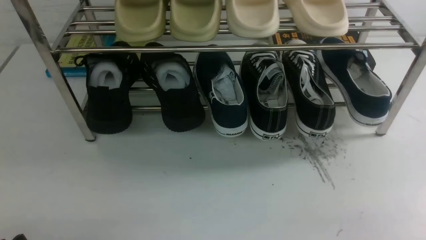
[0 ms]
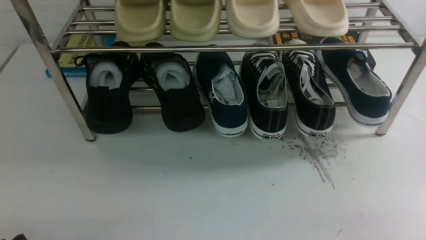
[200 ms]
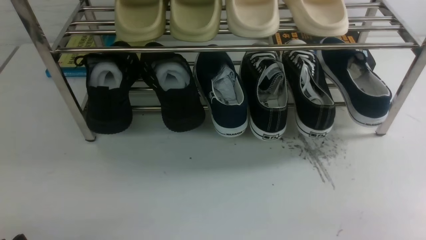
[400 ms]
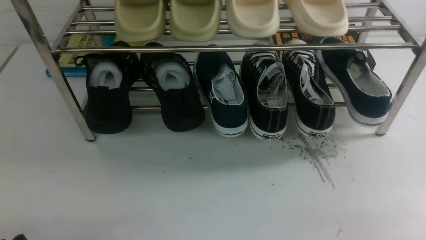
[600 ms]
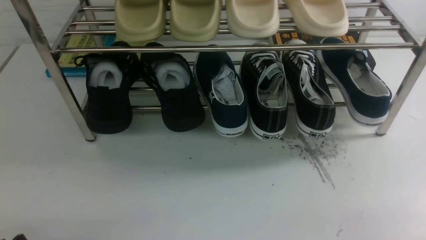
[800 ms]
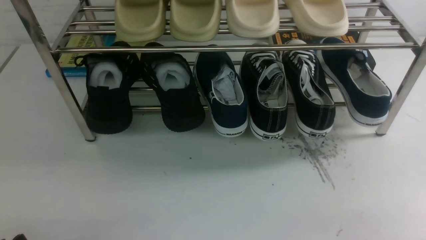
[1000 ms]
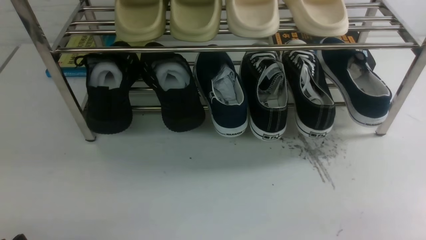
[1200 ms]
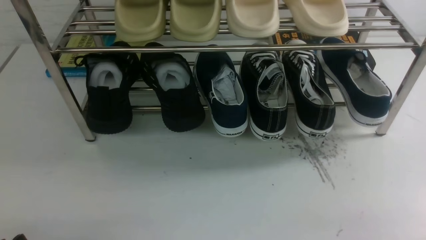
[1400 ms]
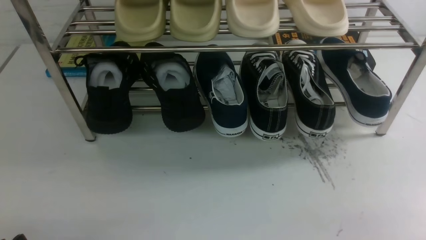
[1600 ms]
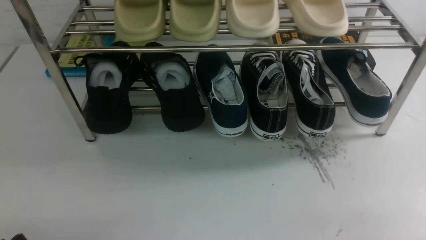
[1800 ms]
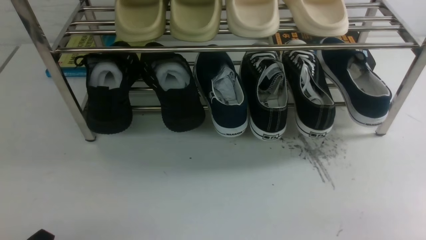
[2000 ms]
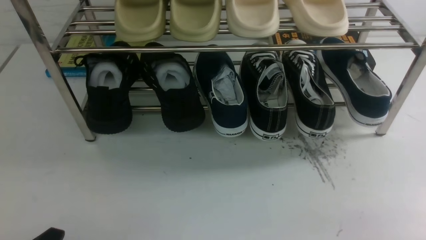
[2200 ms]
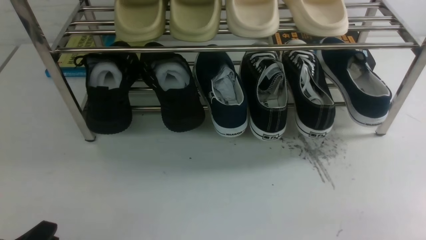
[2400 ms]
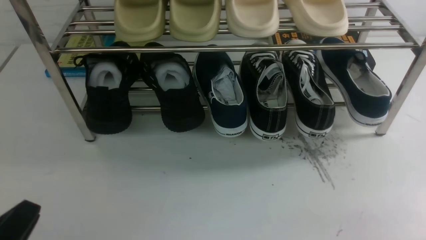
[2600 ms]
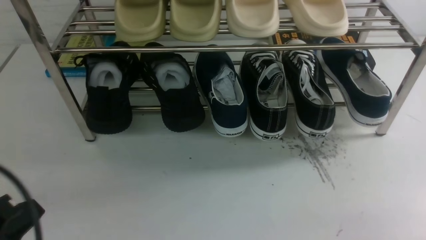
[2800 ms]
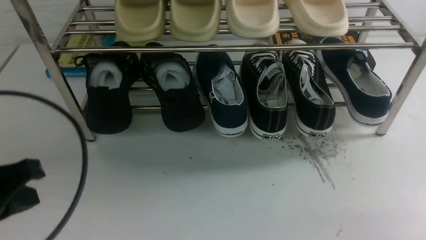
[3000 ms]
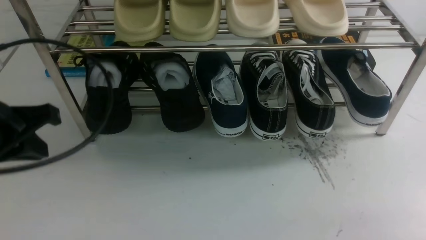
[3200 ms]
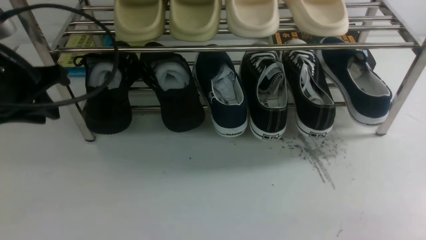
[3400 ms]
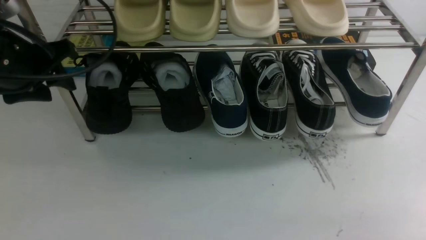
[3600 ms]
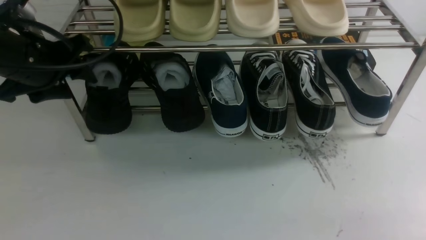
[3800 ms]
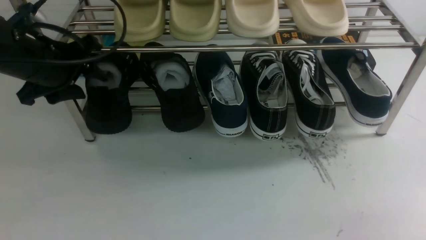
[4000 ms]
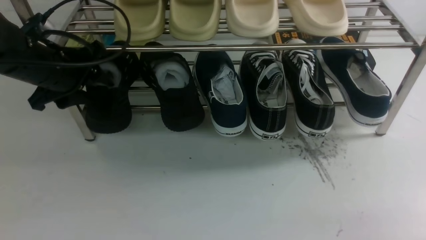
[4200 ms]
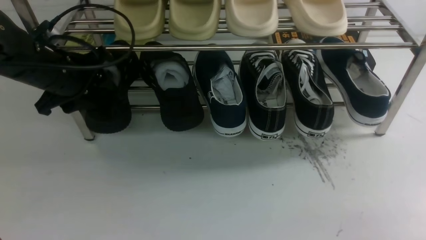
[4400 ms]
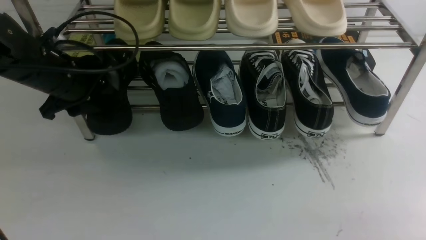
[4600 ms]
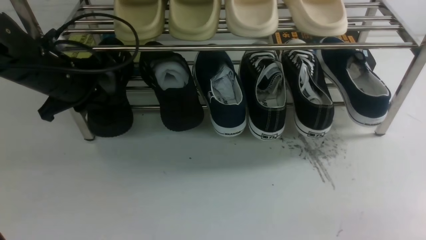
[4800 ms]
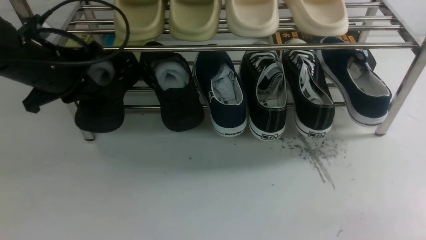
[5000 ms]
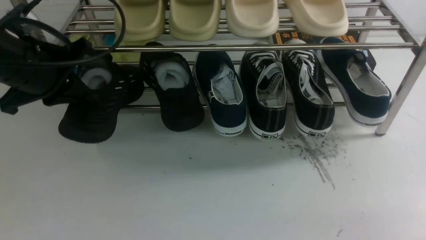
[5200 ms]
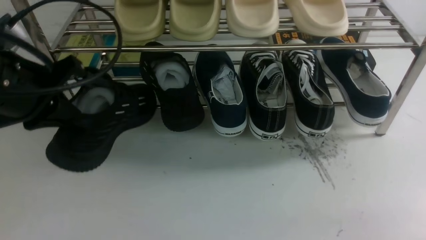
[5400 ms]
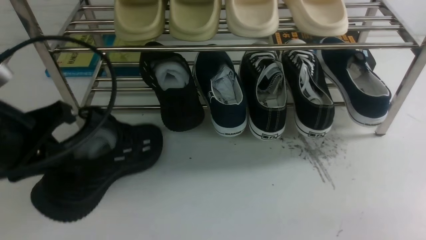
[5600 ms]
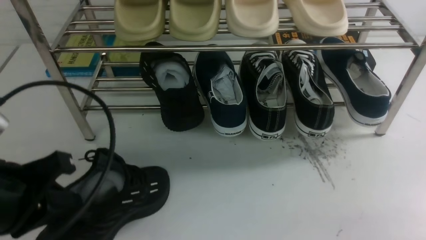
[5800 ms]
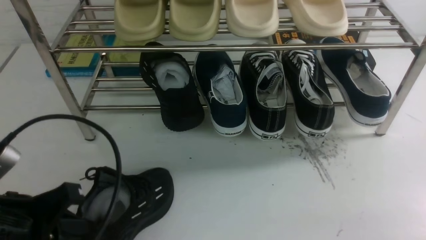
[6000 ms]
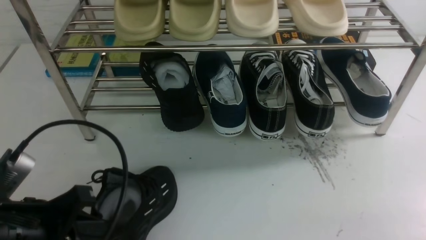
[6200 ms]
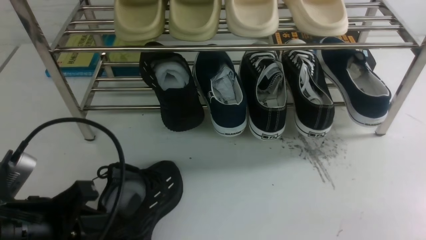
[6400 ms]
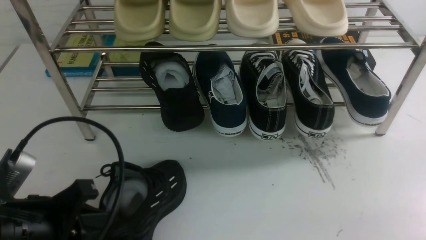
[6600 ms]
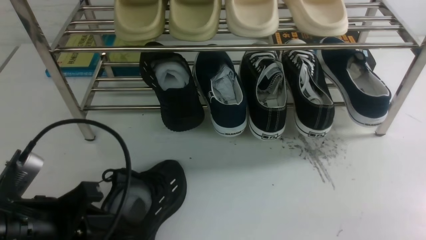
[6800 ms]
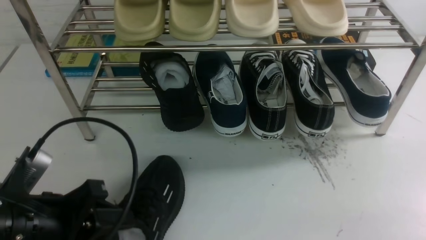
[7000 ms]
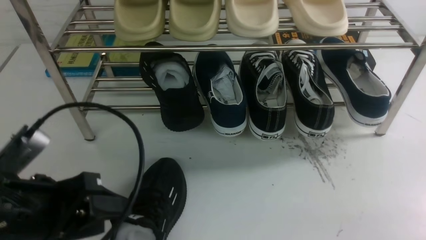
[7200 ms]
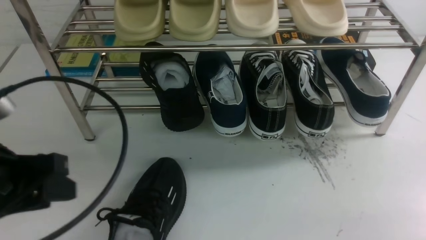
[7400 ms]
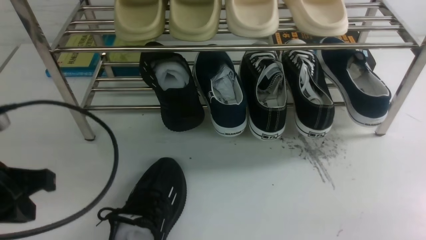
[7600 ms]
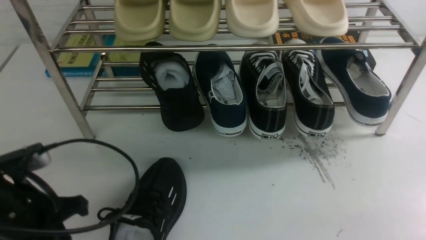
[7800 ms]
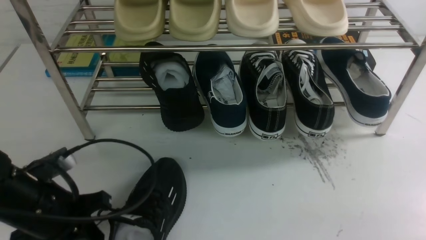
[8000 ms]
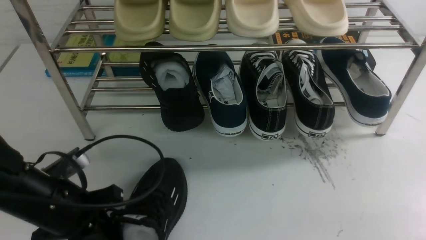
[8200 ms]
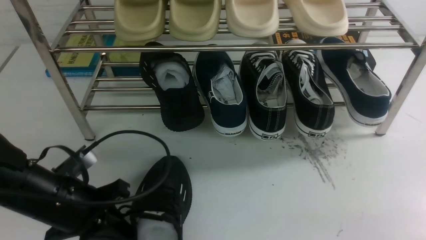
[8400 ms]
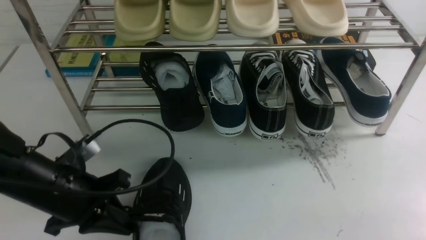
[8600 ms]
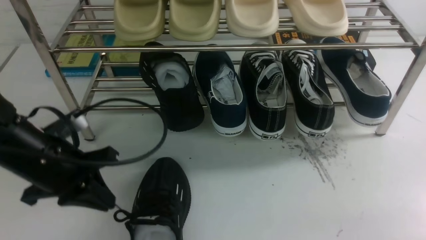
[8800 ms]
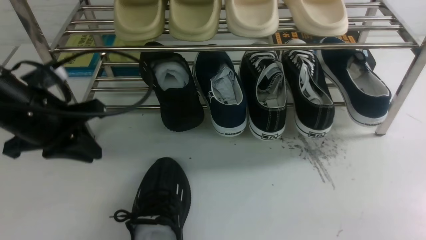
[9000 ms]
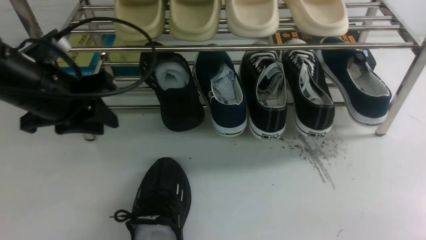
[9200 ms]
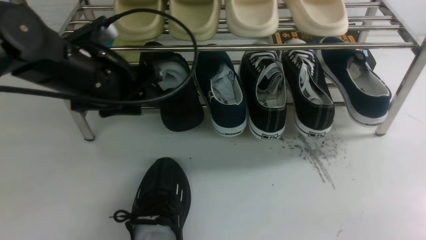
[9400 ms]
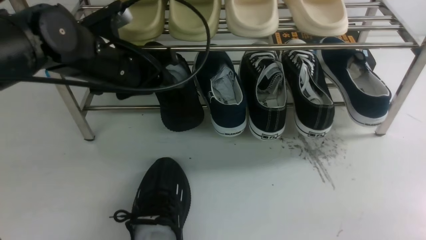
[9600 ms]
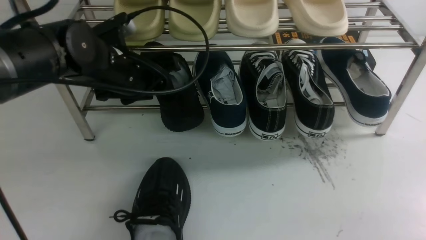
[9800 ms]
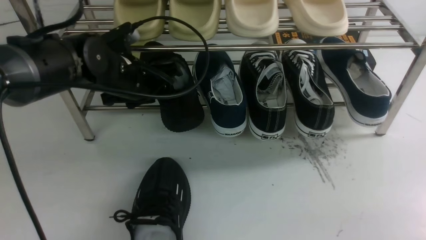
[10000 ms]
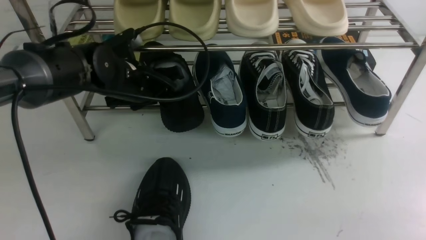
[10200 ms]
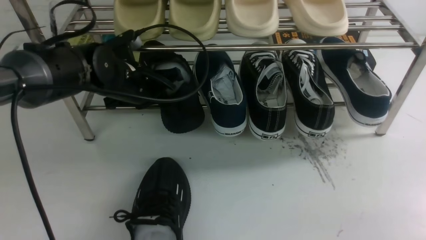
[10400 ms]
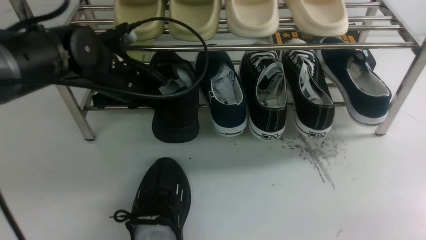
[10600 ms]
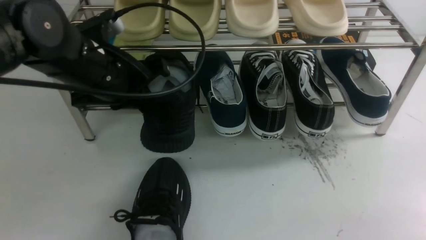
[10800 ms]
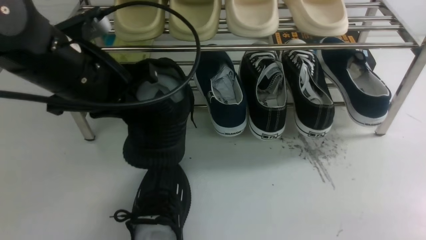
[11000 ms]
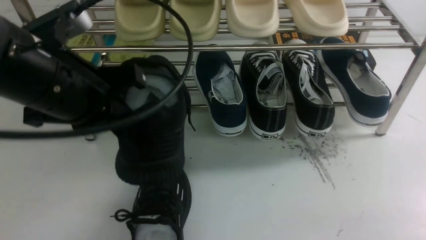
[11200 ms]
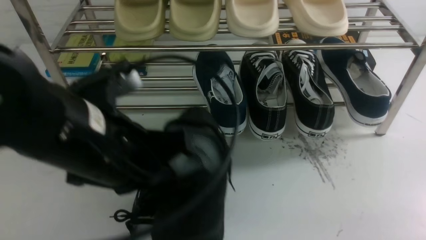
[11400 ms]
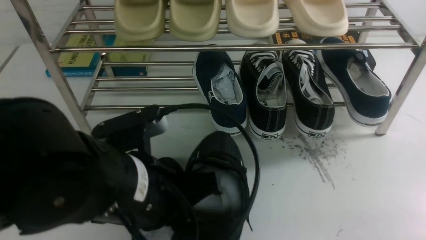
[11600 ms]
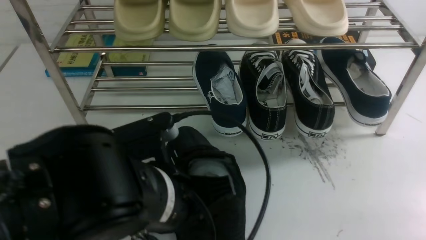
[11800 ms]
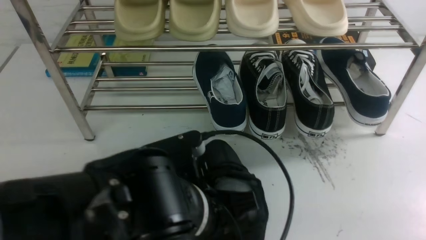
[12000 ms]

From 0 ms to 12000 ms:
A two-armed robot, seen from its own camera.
Step, from 0 ms to 5200 ms: use the left arm to clamp a shoe on the left side of the shoe rack.
Step, from 5400 ms to 7200 ms: Use your left arm to remove the clamped shoe from the shoe rack and put it down.
Step, from 7400 ms to 10800 ms: use the left arm to clamp a shoe on the left side of the shoe rack.
From 0 ms to 1600 ms: Both grippers stay put.
From 1600 ms to 3000 ms: The left gripper goes some 15 cm upward and forward, and closes its fingers.
From 3000 ms to 4400 ms: The left gripper travels forward by some 20 cm, and opens its fingers.
From 4400 ms to 6000 ms: The left gripper travels backward by roughly 25 cm, and closes its fingers.
From 6000 ms to 7600 ms: The left gripper ends up about 5 cm from where it was, and opens, then closes once more.
From 7600 ms to 9000 ms: The left gripper is displaced forward by some 10 cm.
From 9000 ms to 10400 ms: The left gripper shifts approximately 15 cm forward and to the right, and opens, then closes again.
From 10400 ms to 12000 ms: The left gripper shifts roughly 25 cm backward and to the right.

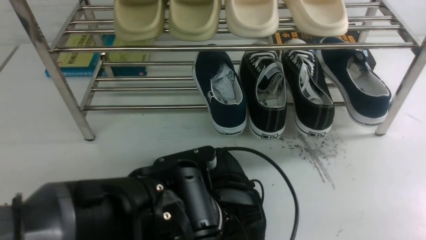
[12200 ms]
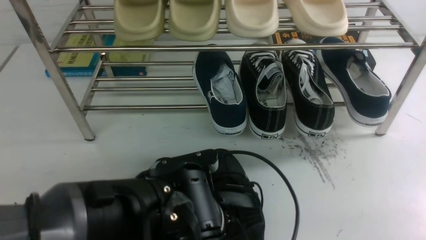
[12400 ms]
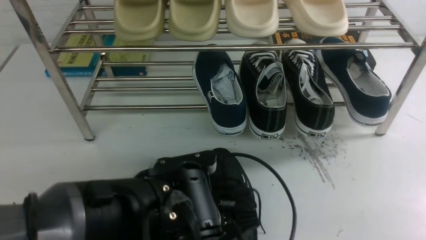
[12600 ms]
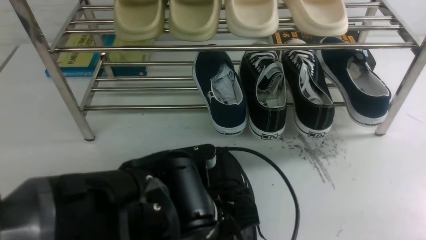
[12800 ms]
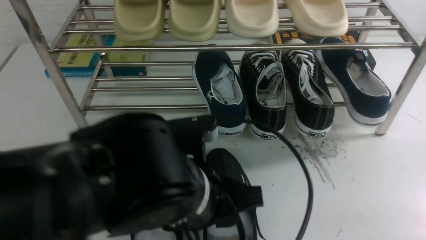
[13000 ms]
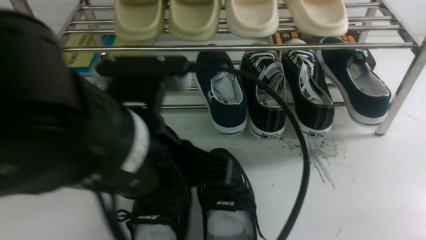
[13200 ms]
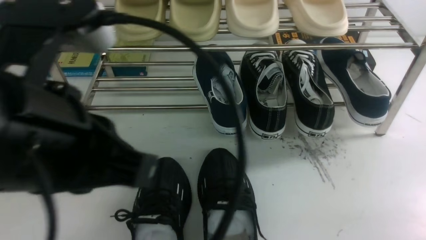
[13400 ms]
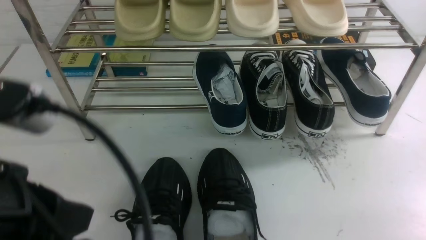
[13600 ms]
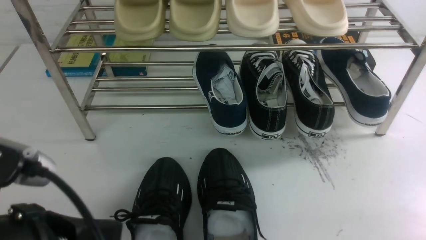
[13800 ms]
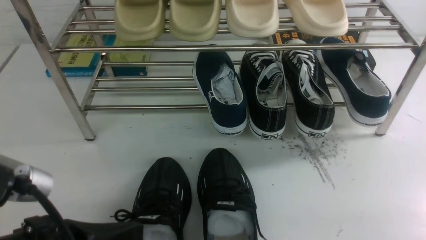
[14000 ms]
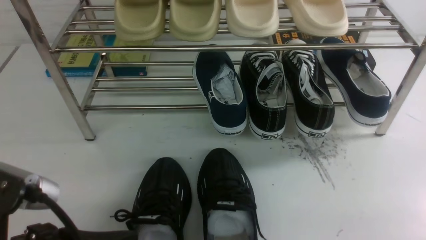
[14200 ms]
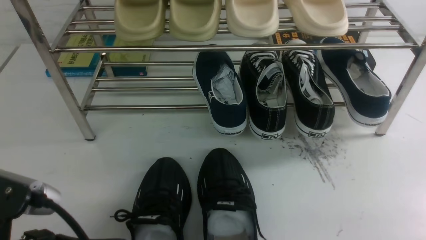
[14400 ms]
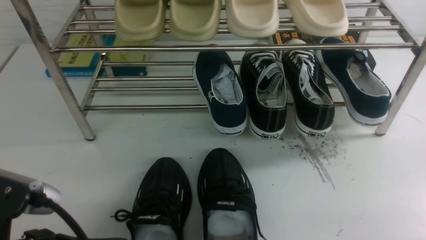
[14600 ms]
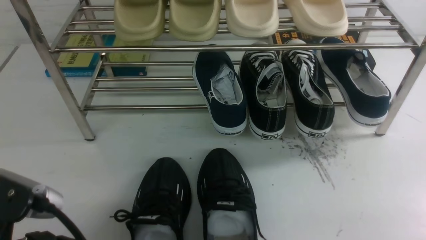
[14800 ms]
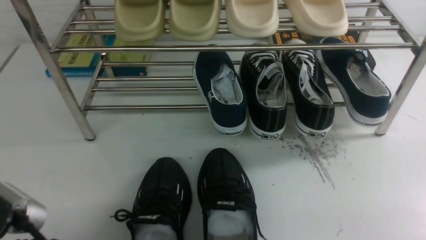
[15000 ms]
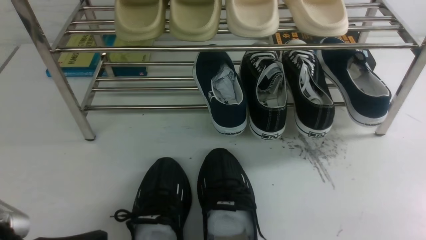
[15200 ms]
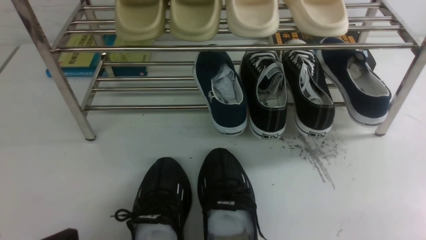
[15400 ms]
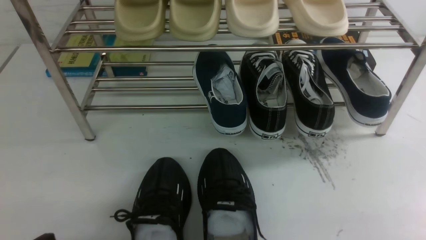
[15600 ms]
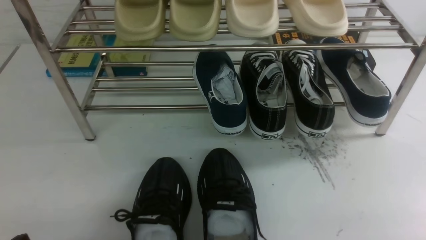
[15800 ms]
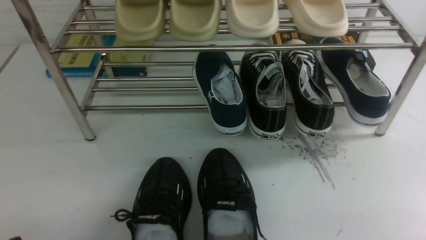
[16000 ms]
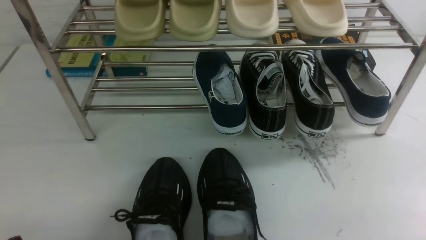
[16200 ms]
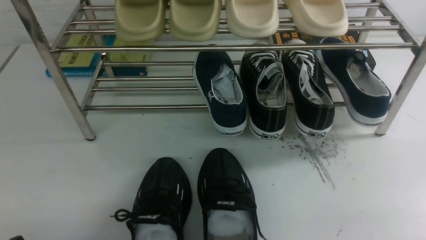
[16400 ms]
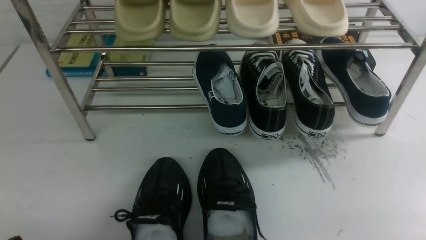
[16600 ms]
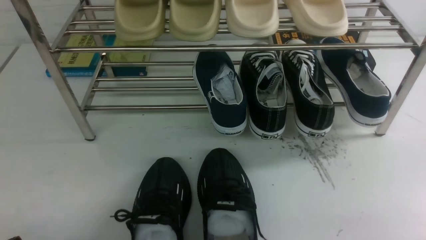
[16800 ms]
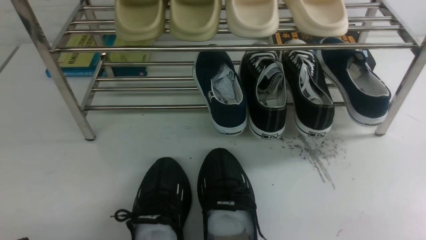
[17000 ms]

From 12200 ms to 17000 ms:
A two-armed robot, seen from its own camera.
From 12200 ms to 13800 ms: The left gripper heads to the left, upward and backward, covering some 20 cm, and opens, then closes again.
From 13800 ms to 15400 ms: The left gripper is displaced downward and to the left by some 15 cm.
